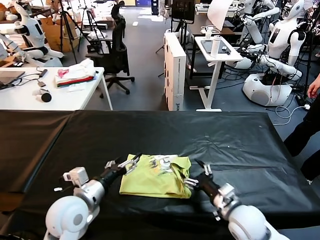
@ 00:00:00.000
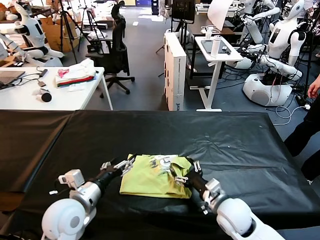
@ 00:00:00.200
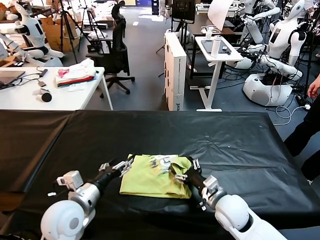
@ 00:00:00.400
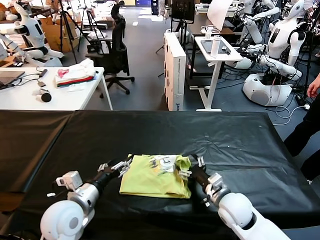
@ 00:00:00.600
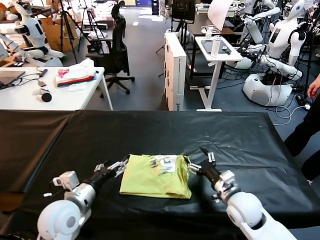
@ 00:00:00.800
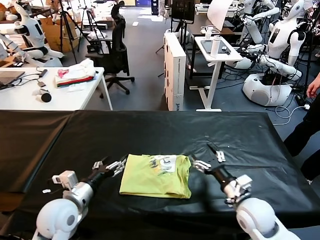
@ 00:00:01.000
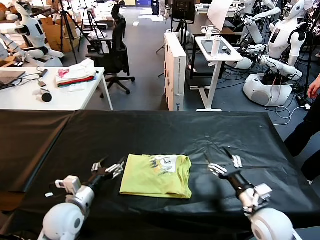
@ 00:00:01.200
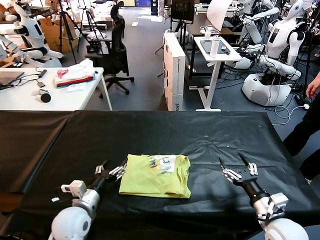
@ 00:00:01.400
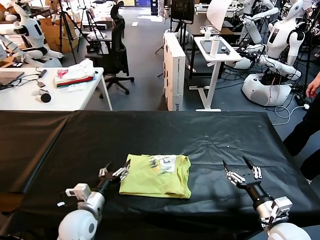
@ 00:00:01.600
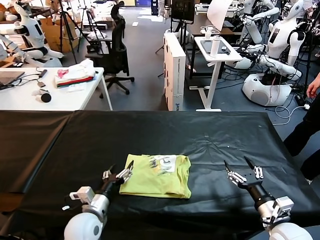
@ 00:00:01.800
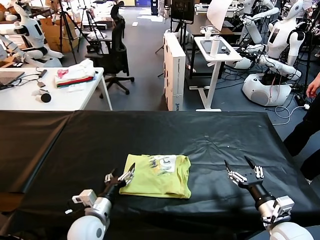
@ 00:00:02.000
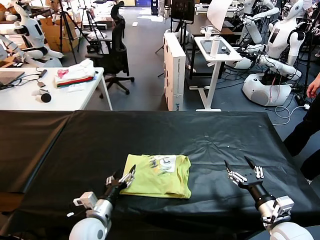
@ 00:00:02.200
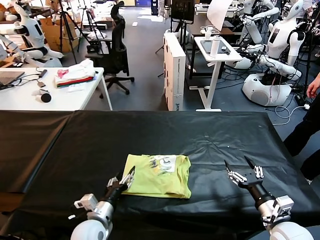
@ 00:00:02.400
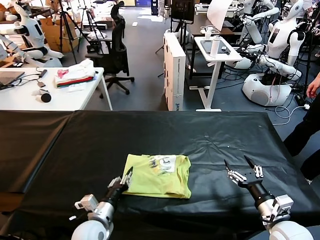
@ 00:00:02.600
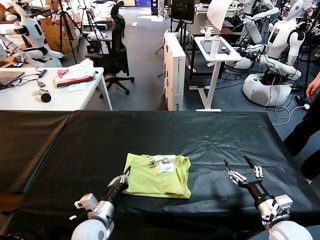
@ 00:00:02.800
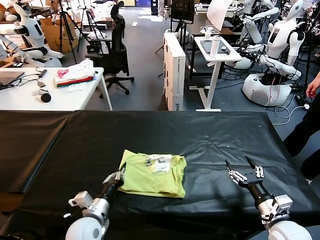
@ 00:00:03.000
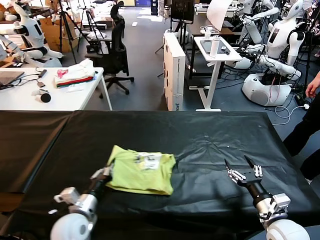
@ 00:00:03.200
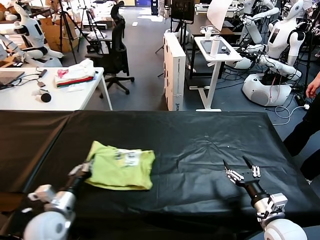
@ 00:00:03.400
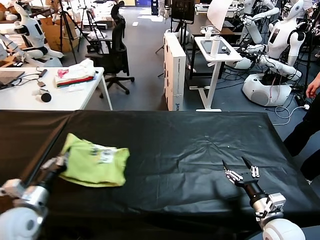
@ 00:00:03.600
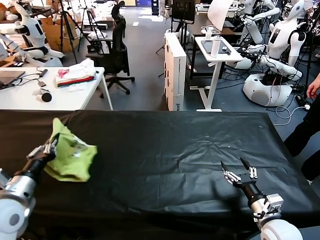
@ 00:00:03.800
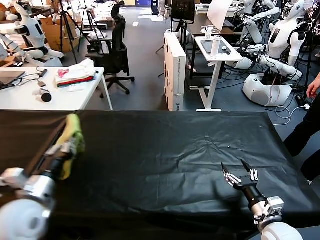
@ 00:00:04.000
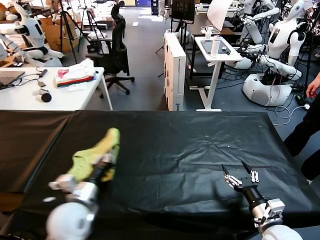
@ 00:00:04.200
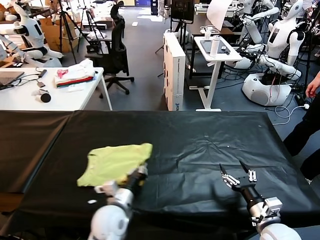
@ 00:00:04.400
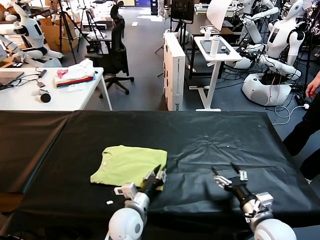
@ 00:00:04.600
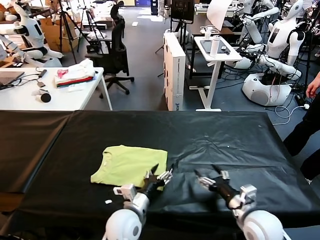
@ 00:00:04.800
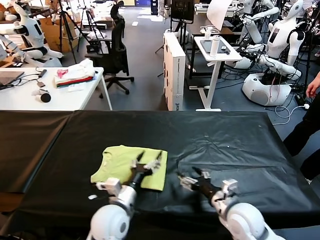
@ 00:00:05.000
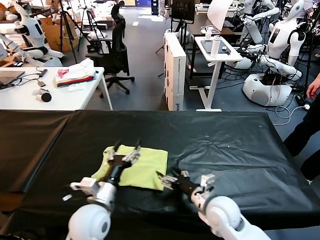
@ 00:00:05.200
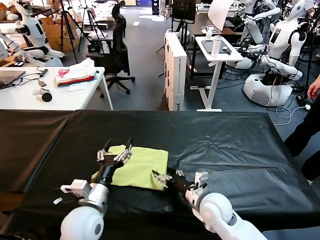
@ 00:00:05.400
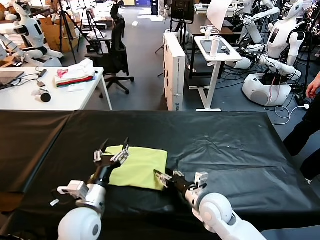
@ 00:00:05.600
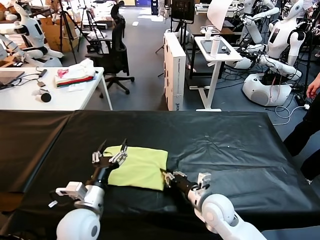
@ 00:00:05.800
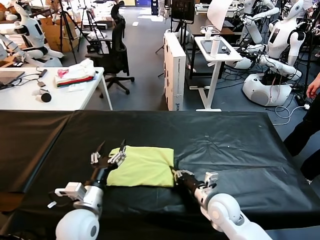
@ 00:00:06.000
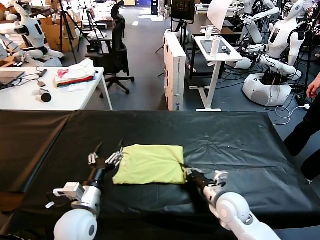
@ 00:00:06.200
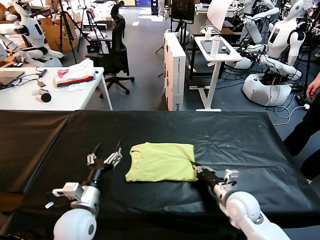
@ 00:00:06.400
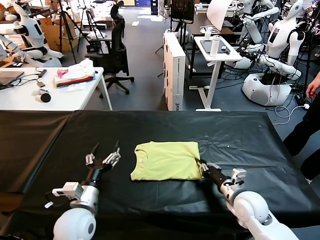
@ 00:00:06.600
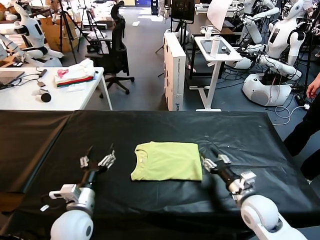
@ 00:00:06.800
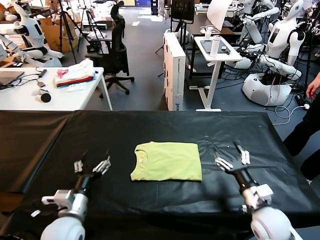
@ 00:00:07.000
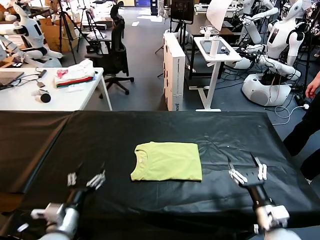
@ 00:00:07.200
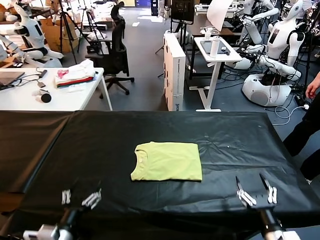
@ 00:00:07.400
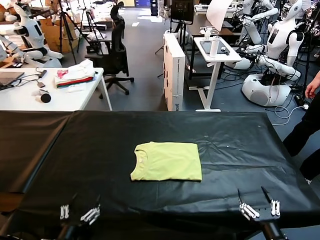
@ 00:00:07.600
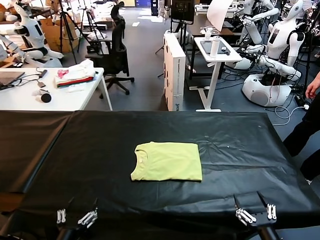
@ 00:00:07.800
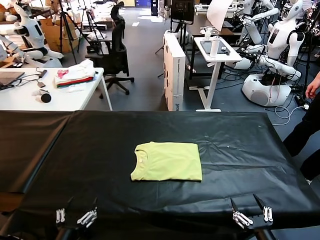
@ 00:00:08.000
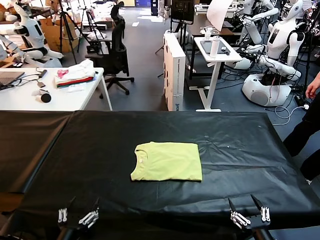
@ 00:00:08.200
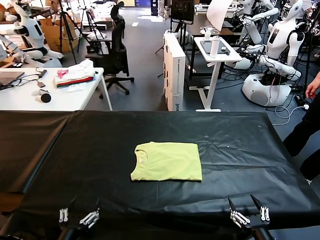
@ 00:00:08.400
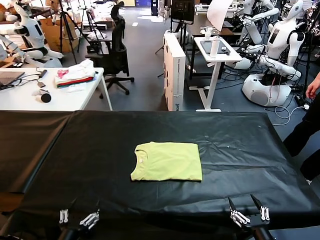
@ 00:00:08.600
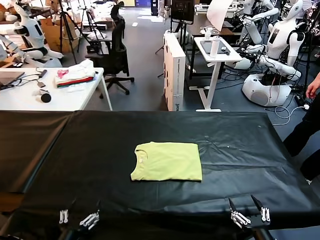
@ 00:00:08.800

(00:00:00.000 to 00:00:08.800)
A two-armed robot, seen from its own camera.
Task of the whole recording: fold and organize the clothes.
Step, 00:00:00.000 - 00:00:04.600: Flip the folded clothes over with left gripper.
Step, 00:00:05.000 - 00:00:06.800: Drag the clothes to the center of the table.
00:00:00.000 - 00:00:01.400: The left gripper shifts roughly 10 cm downward; the right gripper shifts approximately 15 cm to the right and backward.
00:00:01.400 - 00:00:03.000: The left gripper closes its fingers.
00:00:03.000 - 00:00:04.400: The left gripper reaches approximately 15 cm to the left, then returns.
00:00:04.400 - 00:00:05.800: The right gripper goes roughly 20 cm to the left and forward, and closes its fingers, while the left gripper travels upward and to the left by approximately 10 cm, and opens up.
00:00:05.800 - 00:00:07.400: The left gripper goes roughly 10 cm backward and to the left; the right gripper shifts roughly 20 cm backward and to the right, and opens.
00:00:07.400 - 00:00:08.800: The two grippers go about 5 cm backward.
